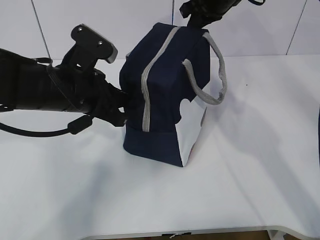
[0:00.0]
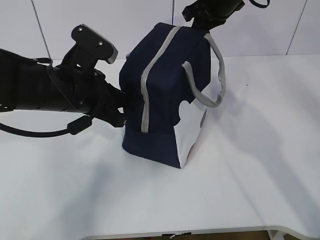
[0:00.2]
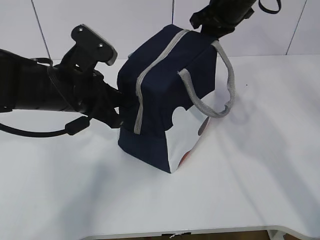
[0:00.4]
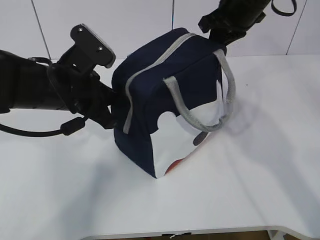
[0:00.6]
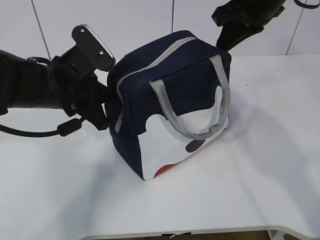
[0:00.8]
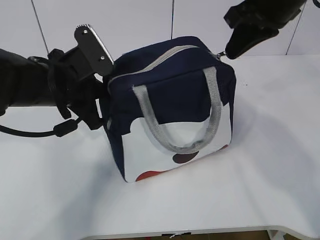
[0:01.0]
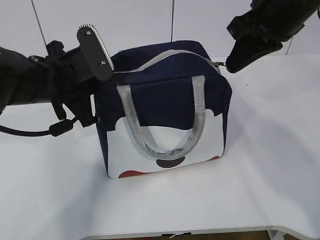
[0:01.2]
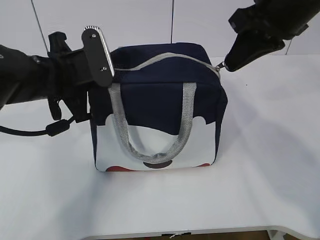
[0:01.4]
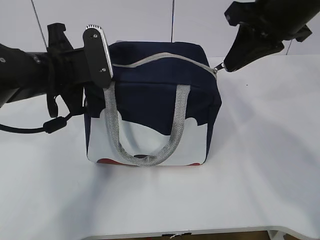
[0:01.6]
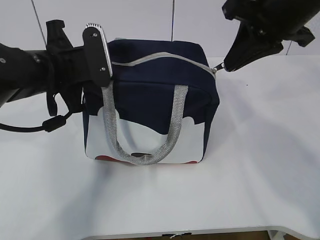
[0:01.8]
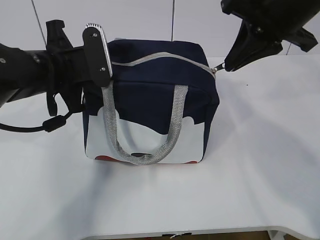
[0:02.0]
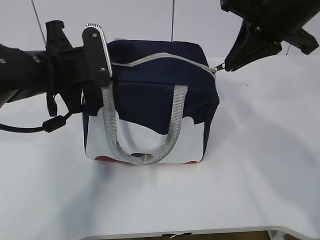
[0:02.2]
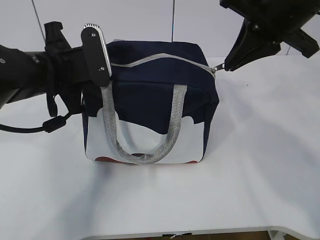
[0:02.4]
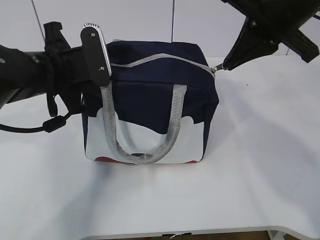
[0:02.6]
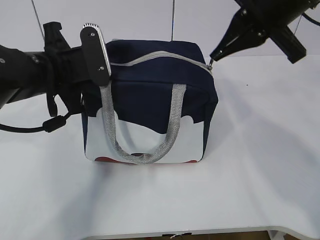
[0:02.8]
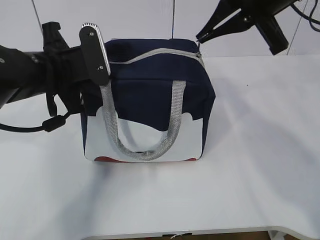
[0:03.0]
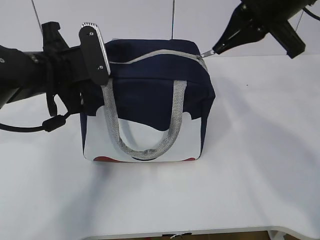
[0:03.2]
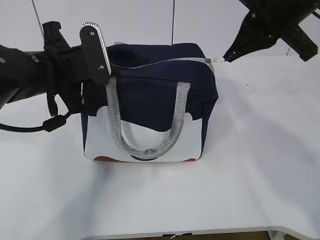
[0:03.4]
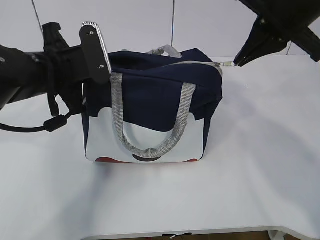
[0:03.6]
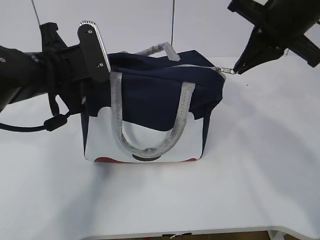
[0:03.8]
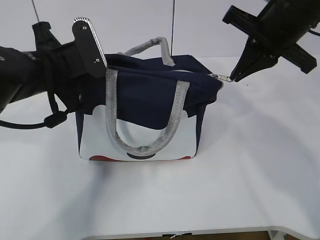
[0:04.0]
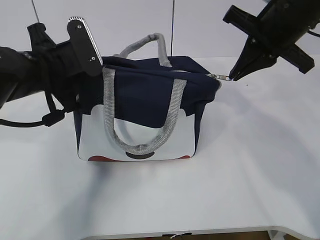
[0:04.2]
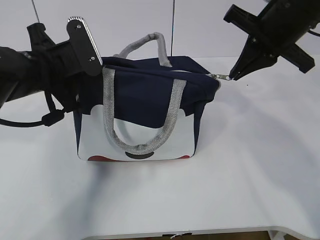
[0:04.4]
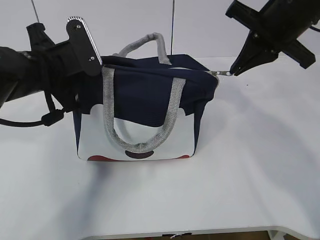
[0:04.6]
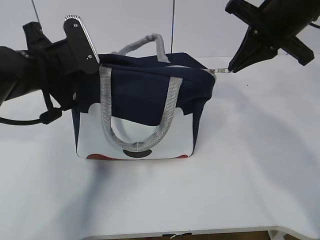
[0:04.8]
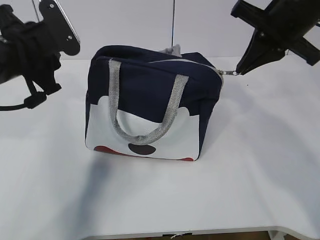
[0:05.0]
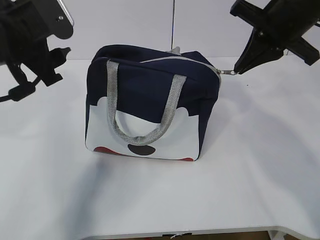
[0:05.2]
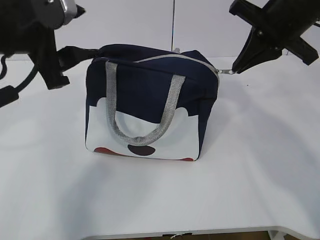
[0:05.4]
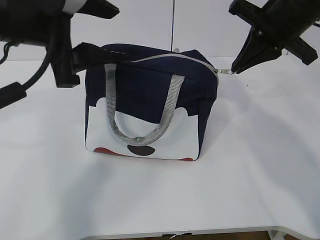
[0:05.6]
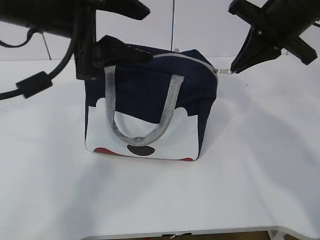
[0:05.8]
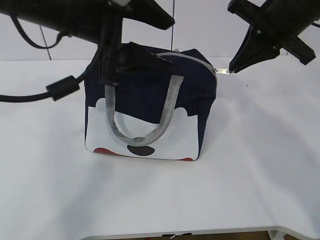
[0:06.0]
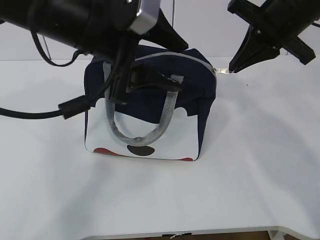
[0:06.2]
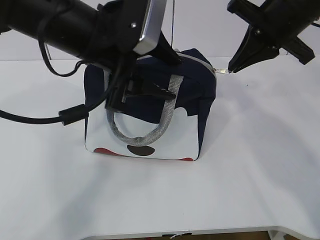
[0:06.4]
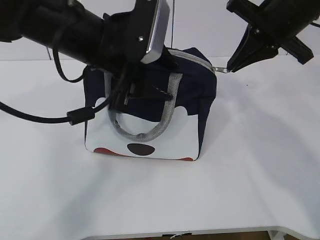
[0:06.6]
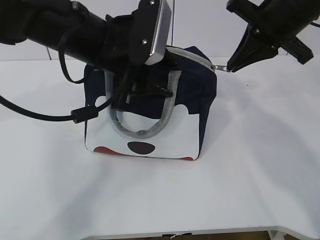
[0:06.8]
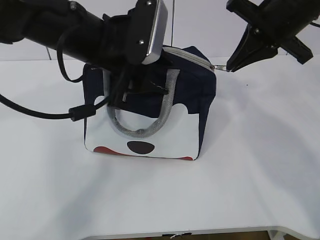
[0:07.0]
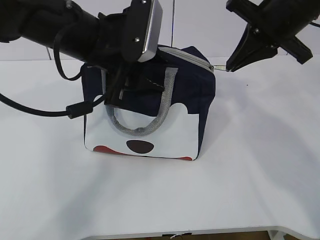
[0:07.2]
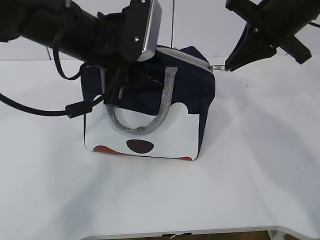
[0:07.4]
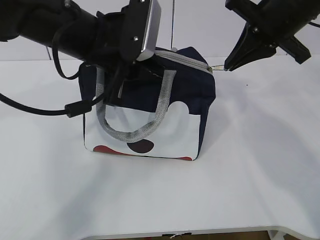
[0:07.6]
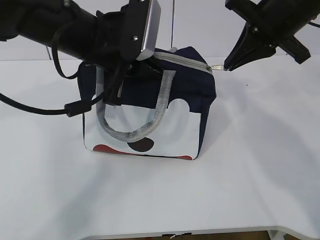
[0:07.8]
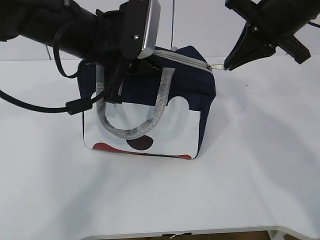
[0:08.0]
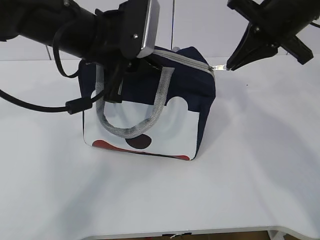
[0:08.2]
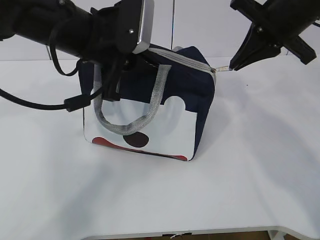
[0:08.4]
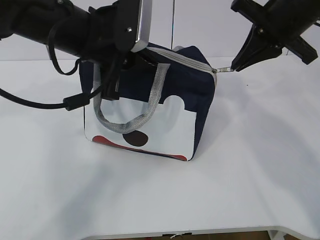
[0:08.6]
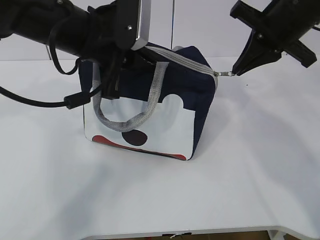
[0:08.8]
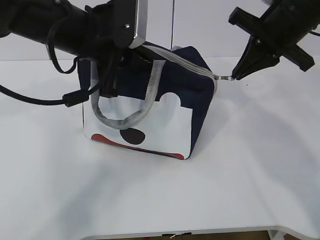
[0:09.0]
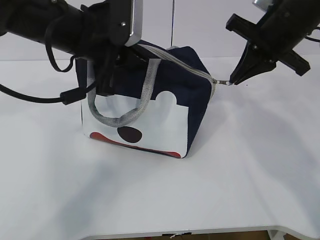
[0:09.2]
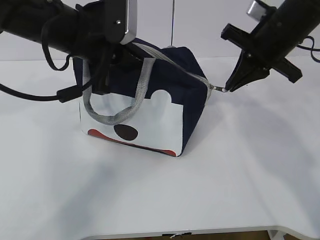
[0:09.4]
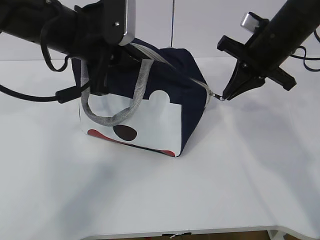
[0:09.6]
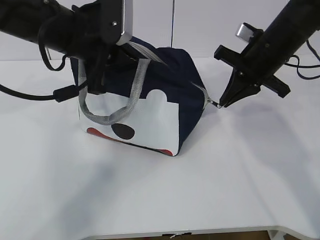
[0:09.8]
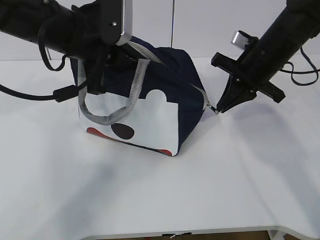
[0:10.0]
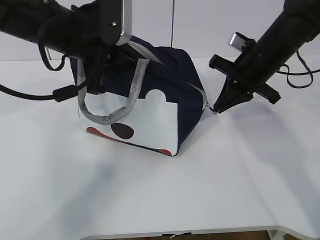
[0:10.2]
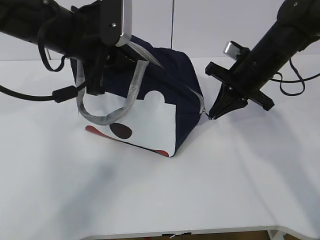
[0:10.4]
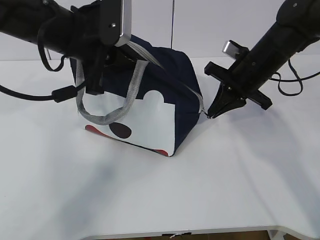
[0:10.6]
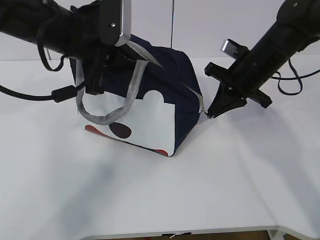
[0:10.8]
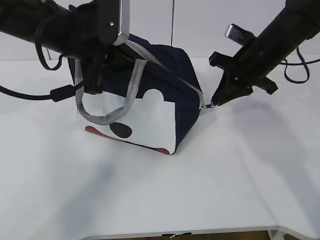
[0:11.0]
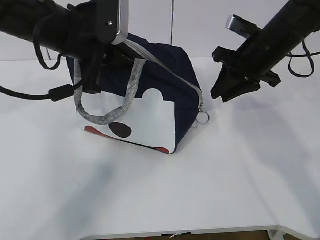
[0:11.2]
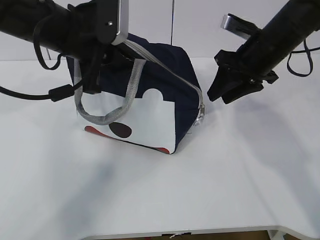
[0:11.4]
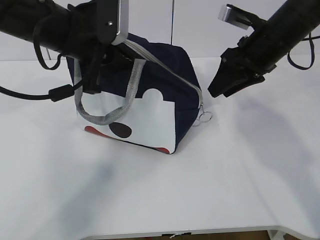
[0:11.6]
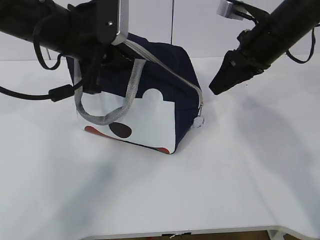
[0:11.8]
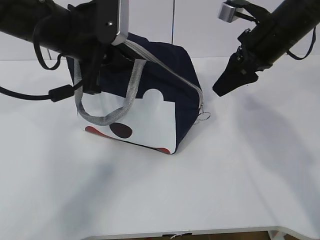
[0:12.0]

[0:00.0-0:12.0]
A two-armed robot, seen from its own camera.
Step, 0:00.0 to 0:11.8: zip up the zipper to close the bag.
0:00.0 to 0:01.6: The right gripper travels backward by some 15 cm.
0:03.0 to 0:04.4: The right gripper moves some 5 cm.
0:04.4 to 0:06.0: The left gripper heads upward and to the right, covering roughly 15 cm, and opens up.
0:06.0 to 0:07.6: The left gripper is displaced downward by some 5 cm, and closes.
0:07.6 to 0:09.0: The grippers move only a little.
0:09.0 to 0:10.4: The right gripper shifts some 10 cm downward.
0:10.4 to 0:12.0: The right gripper shifts some 5 cm upward, and opens up.

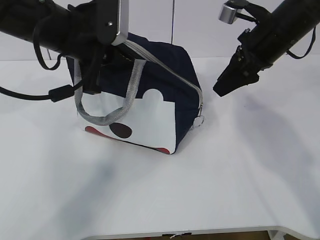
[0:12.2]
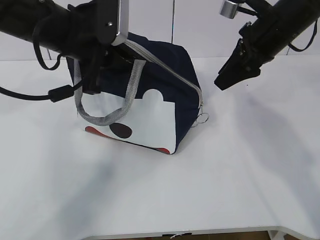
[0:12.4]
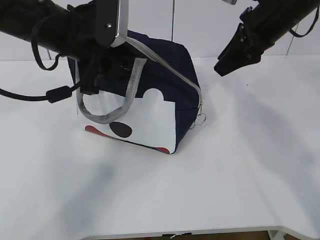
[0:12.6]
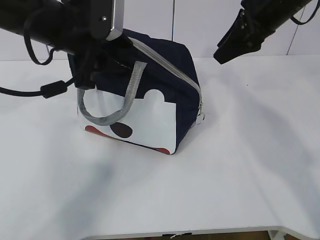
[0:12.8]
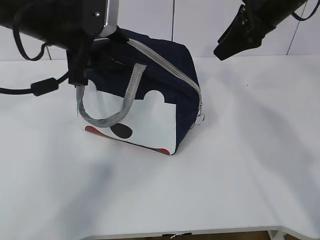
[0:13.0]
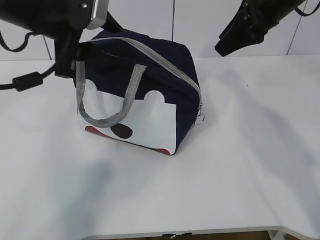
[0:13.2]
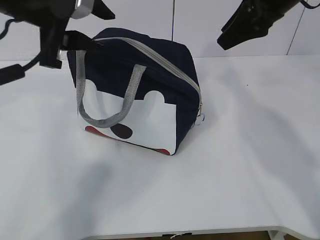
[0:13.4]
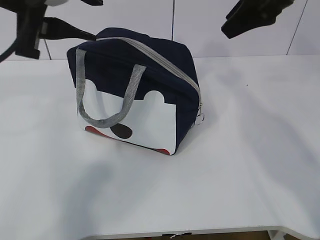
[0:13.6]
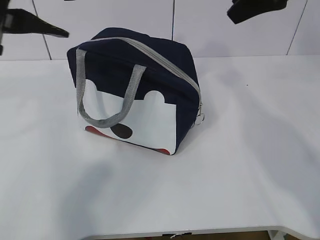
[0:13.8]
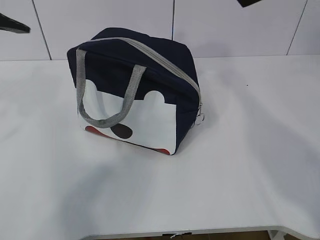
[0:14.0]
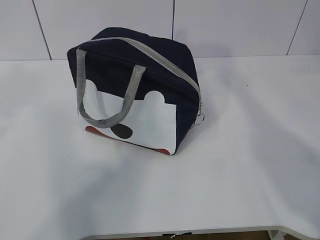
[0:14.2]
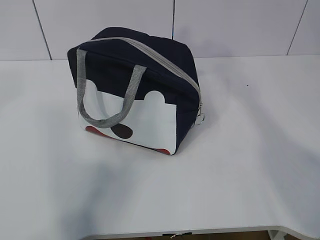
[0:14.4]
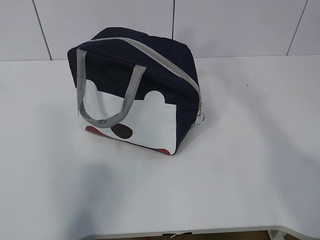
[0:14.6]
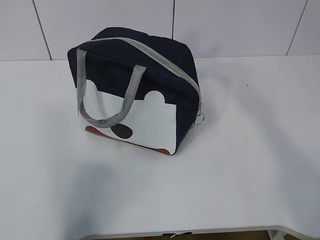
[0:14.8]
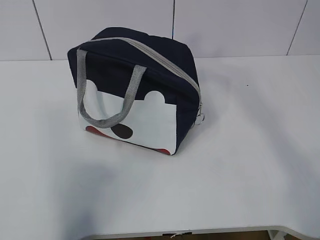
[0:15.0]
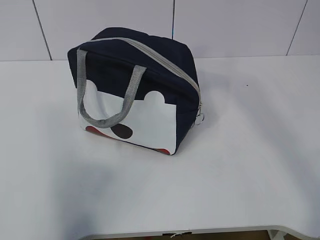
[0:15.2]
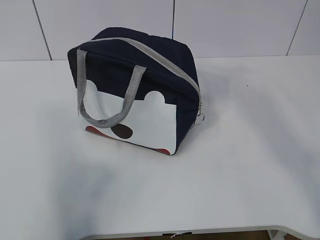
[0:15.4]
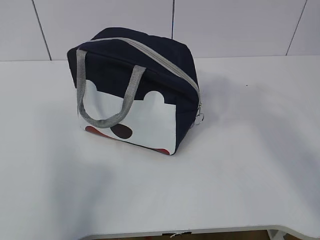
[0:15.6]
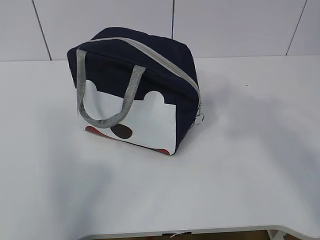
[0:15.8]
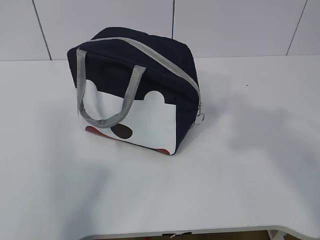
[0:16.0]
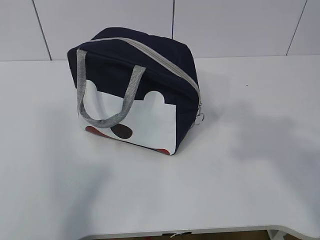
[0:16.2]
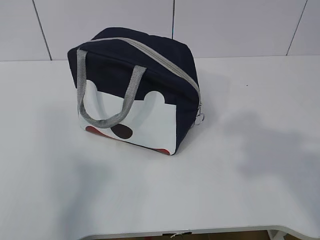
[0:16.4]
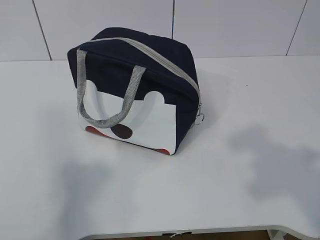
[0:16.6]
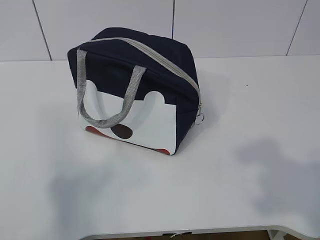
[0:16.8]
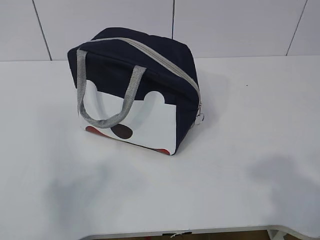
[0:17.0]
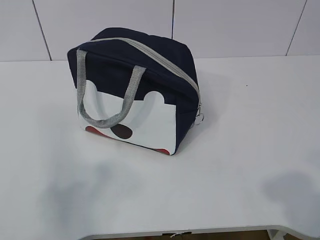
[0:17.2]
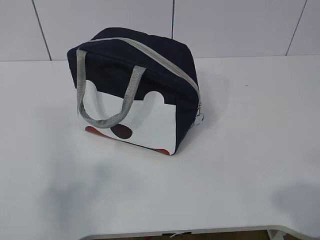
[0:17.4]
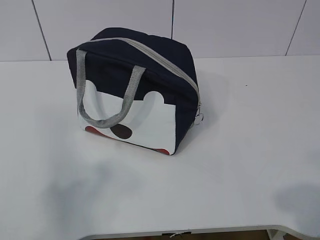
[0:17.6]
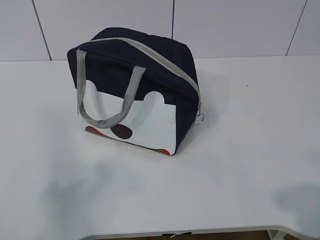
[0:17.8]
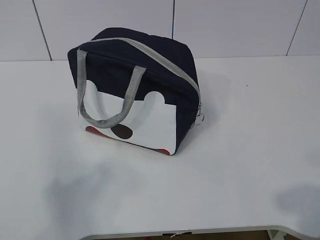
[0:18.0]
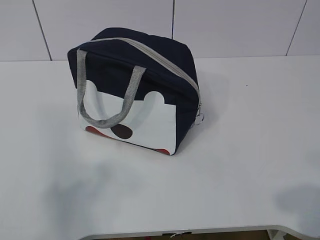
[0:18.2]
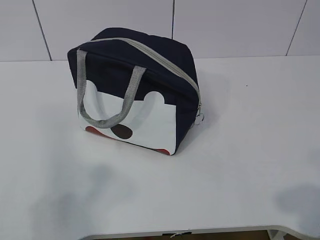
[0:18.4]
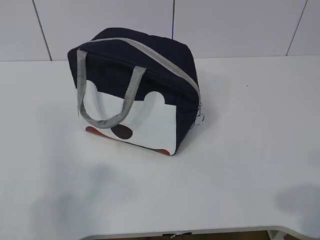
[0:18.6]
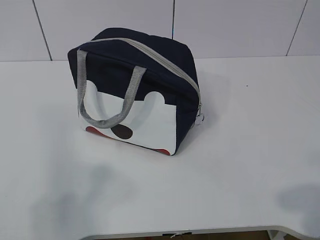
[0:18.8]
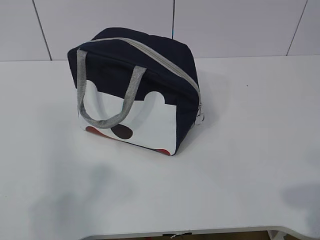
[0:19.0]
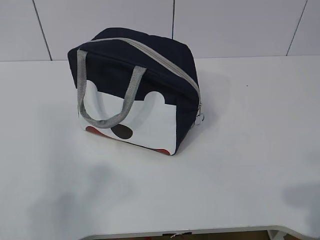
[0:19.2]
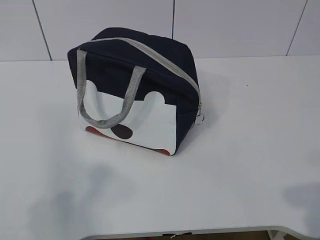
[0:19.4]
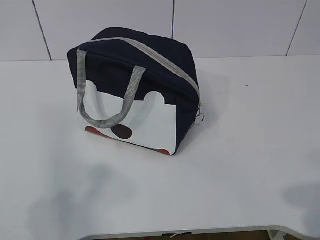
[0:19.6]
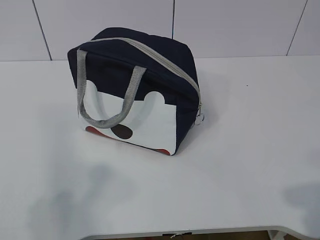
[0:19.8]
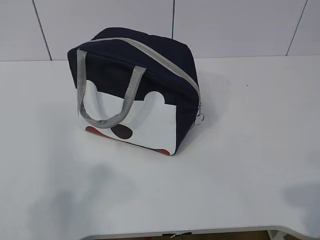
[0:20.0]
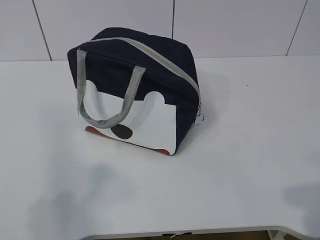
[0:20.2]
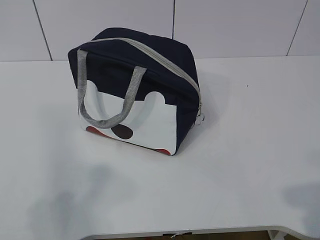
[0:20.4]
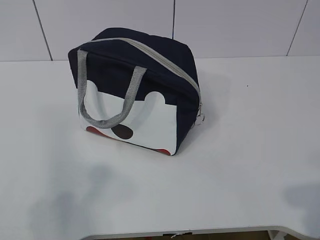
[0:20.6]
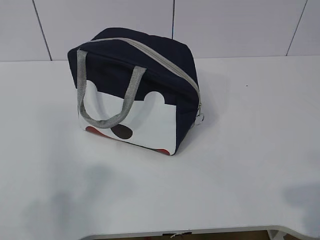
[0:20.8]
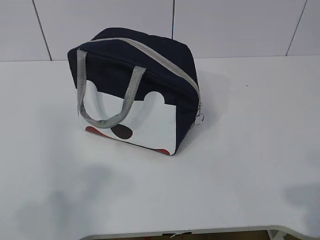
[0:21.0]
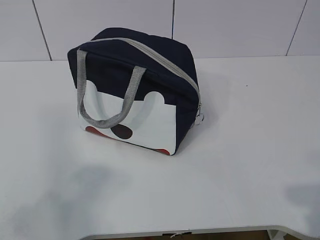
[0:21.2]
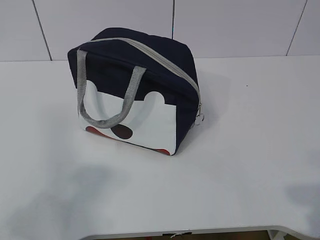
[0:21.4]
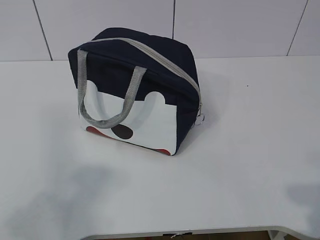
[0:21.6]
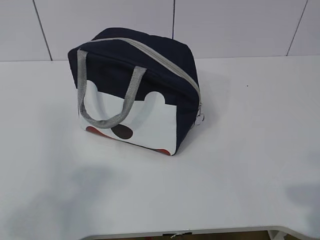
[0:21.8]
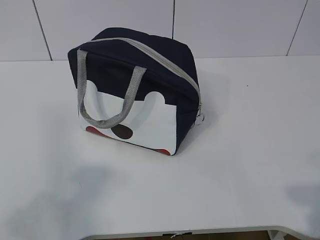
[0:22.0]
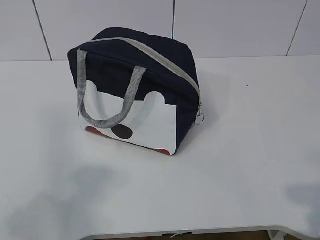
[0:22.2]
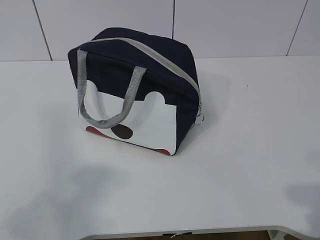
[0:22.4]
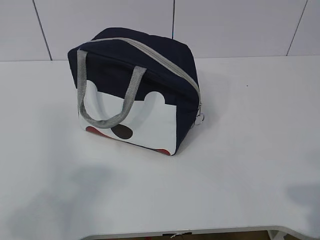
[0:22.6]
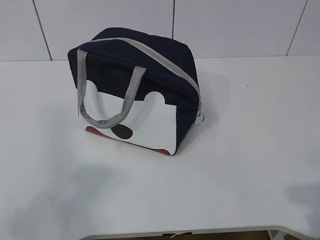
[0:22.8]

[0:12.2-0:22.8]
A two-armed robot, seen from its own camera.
0:12.2 to 0:13.8: The right gripper goes approximately 10 cm upward; the left gripper heads upward, backward and to the left, covering approximately 15 cm, and opens.
0:13.8 to 0:15.2: The right gripper heads backward and upward, covering approximately 25 cm; the left gripper travels backward, to the left and upward by approximately 25 cm.
0:15.2 to 0:16.8: The left gripper is displaced downward and backward by roughly 20 cm.
